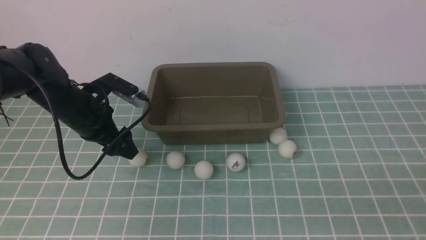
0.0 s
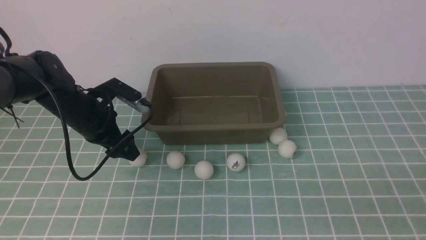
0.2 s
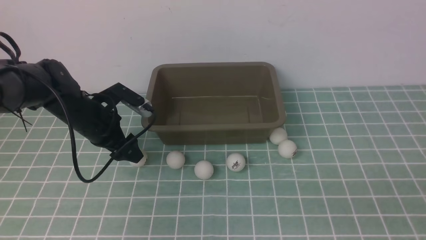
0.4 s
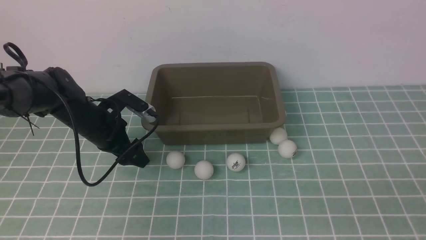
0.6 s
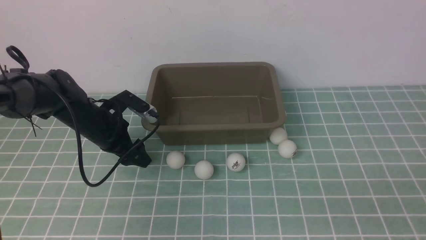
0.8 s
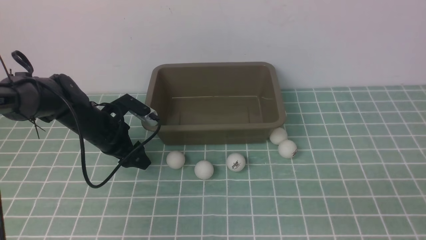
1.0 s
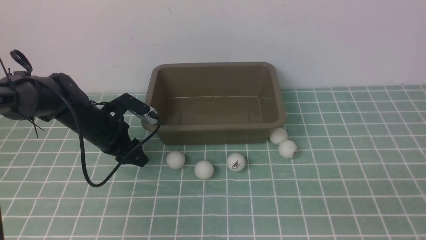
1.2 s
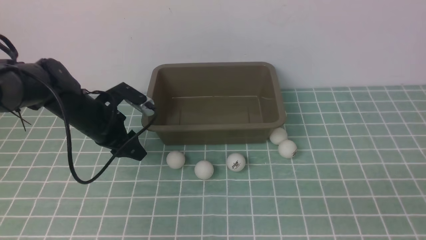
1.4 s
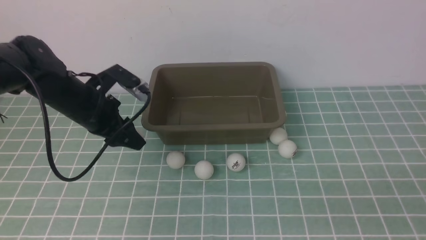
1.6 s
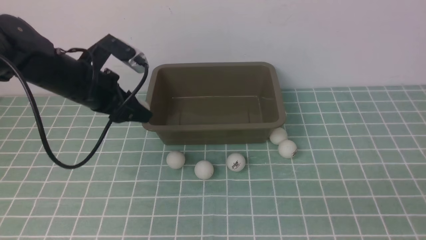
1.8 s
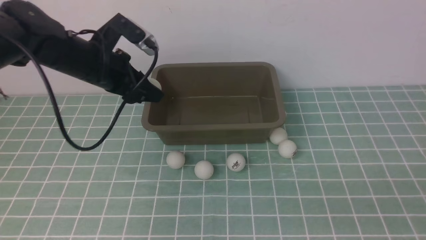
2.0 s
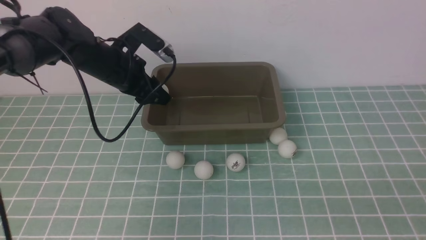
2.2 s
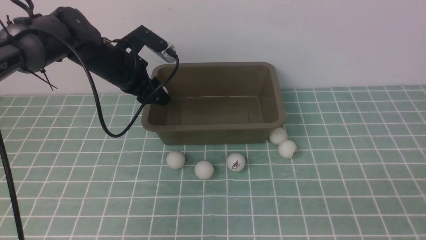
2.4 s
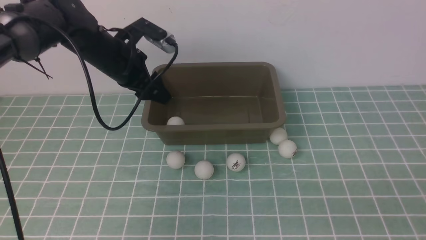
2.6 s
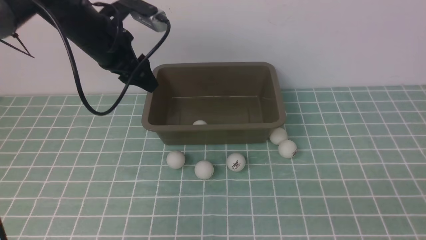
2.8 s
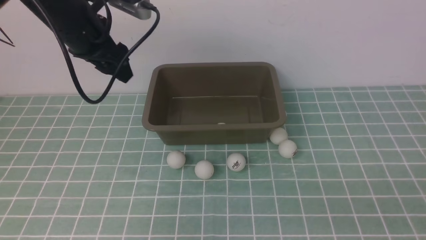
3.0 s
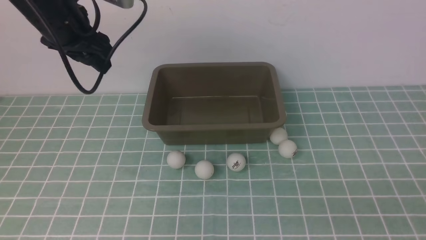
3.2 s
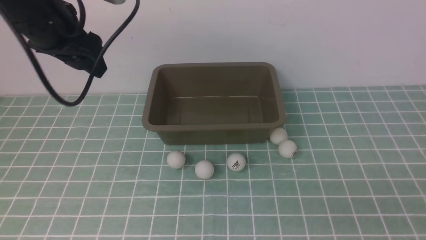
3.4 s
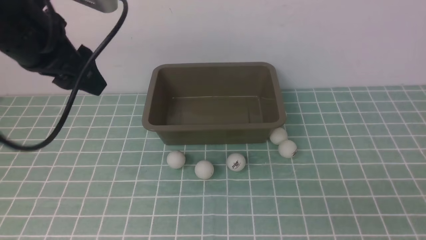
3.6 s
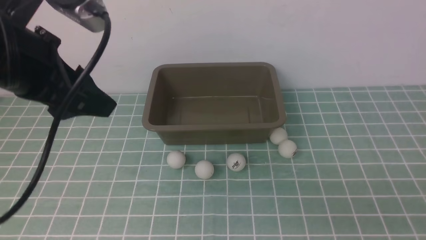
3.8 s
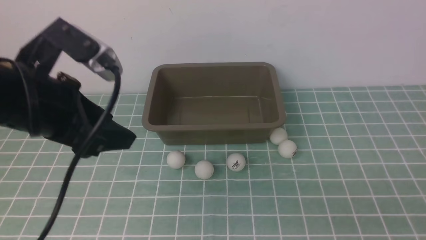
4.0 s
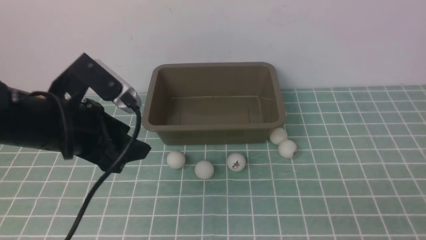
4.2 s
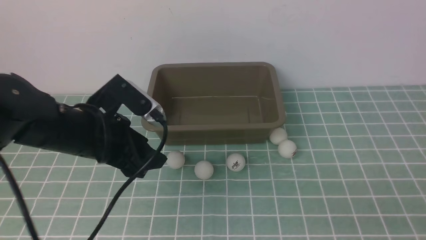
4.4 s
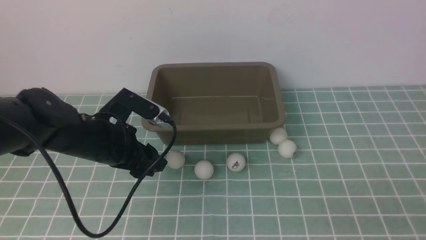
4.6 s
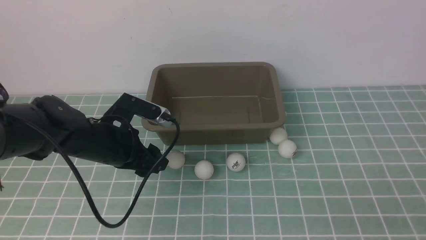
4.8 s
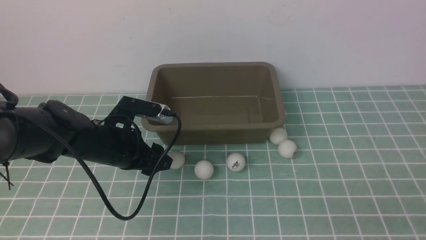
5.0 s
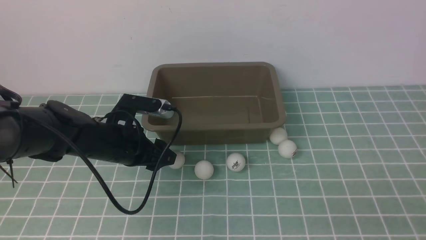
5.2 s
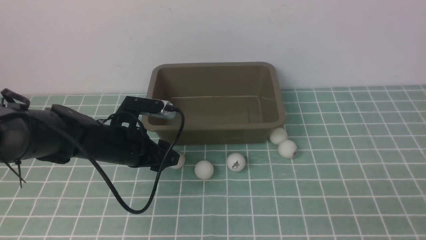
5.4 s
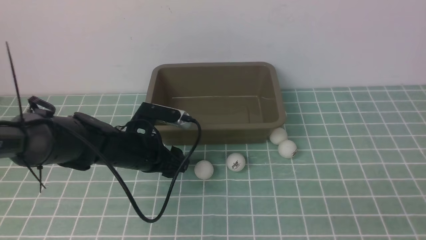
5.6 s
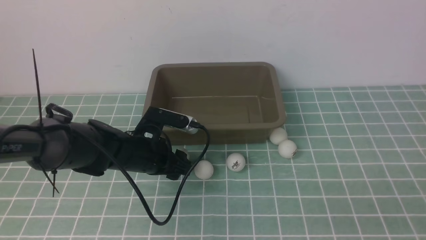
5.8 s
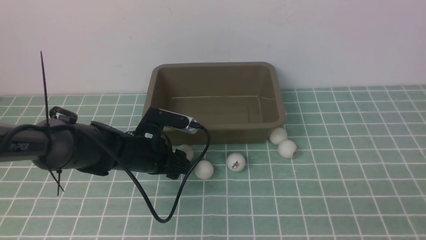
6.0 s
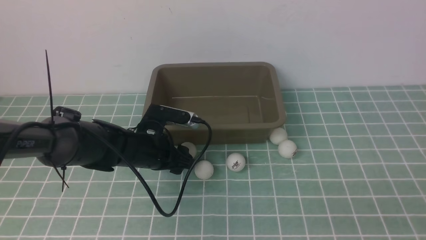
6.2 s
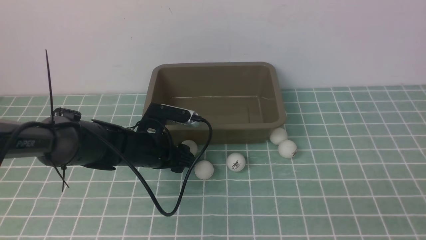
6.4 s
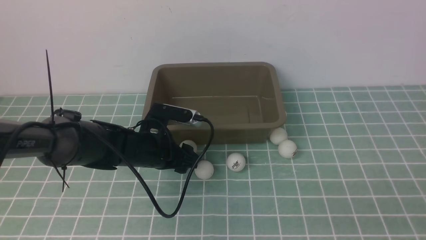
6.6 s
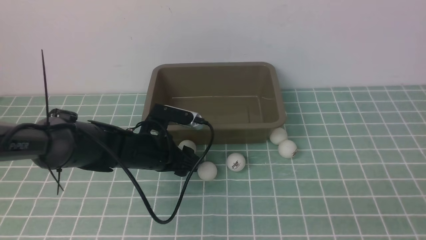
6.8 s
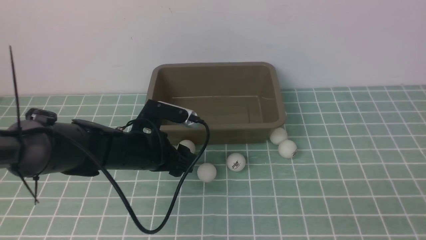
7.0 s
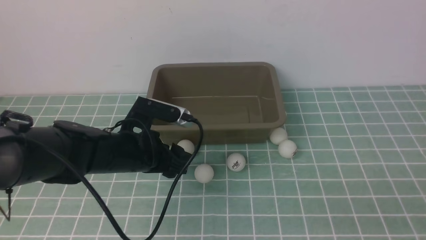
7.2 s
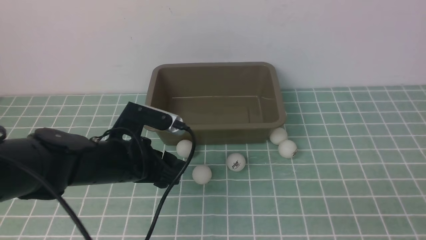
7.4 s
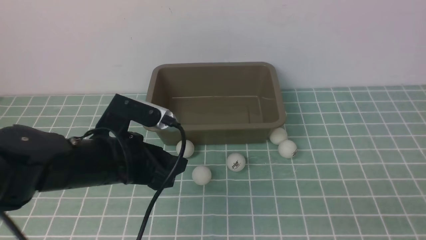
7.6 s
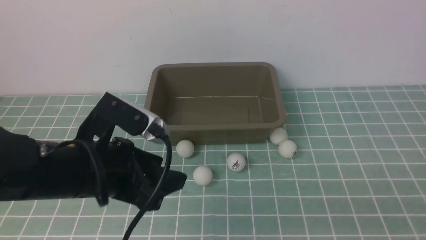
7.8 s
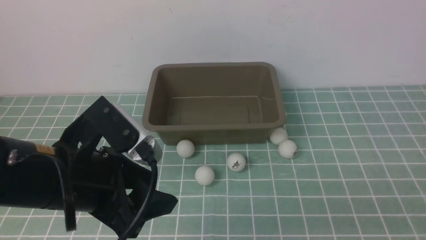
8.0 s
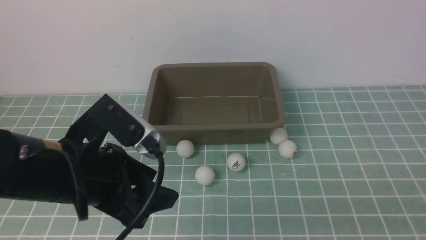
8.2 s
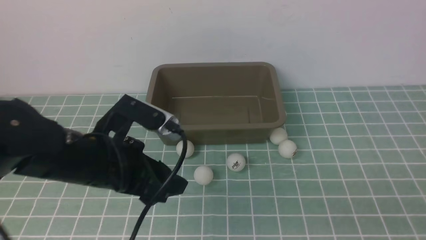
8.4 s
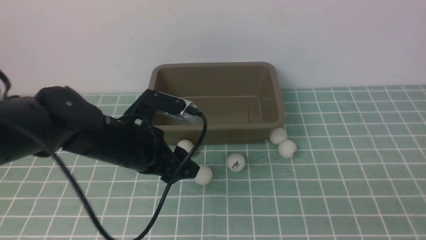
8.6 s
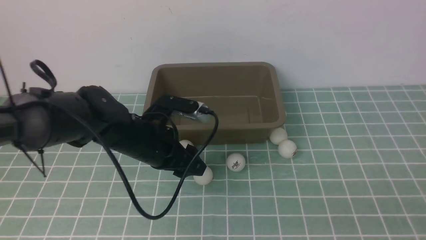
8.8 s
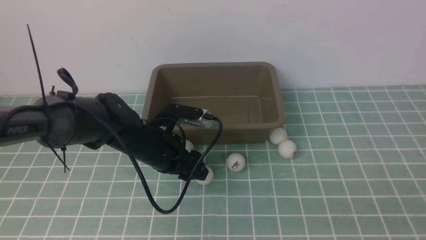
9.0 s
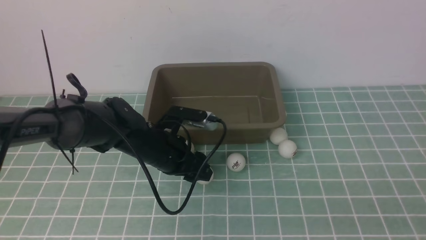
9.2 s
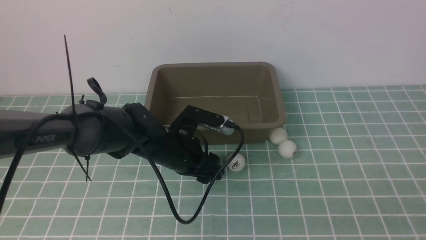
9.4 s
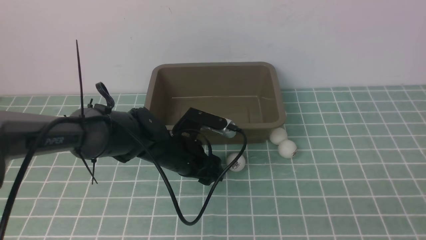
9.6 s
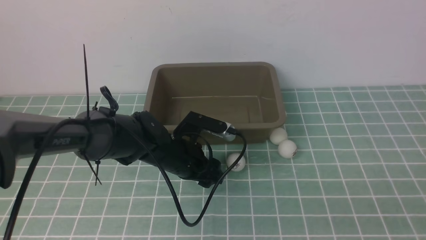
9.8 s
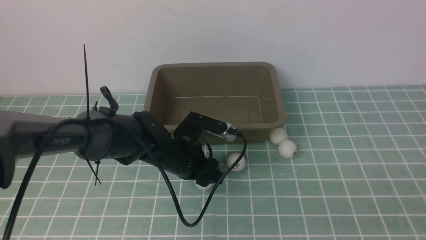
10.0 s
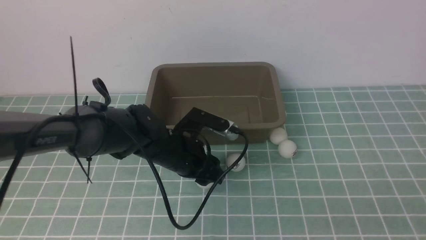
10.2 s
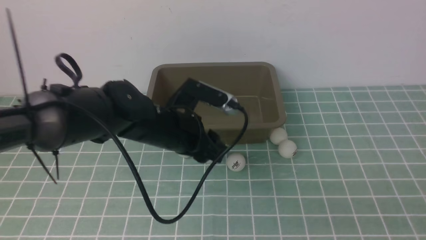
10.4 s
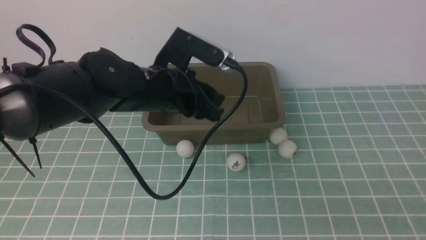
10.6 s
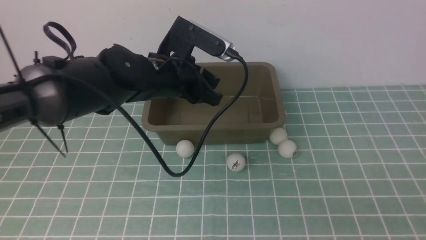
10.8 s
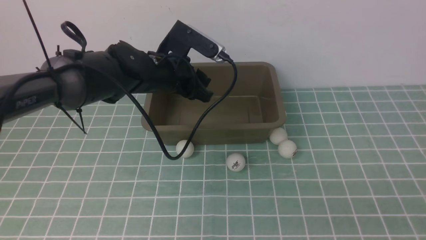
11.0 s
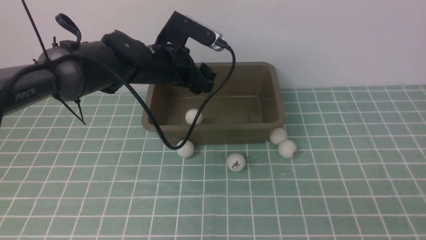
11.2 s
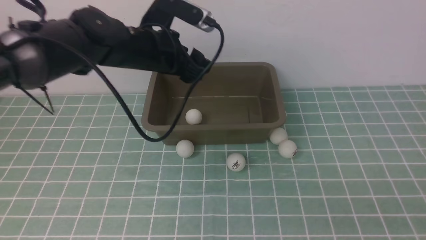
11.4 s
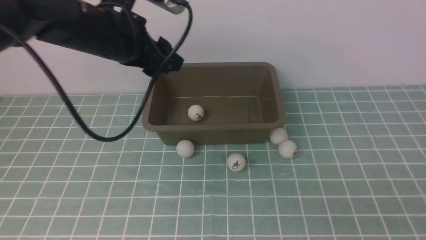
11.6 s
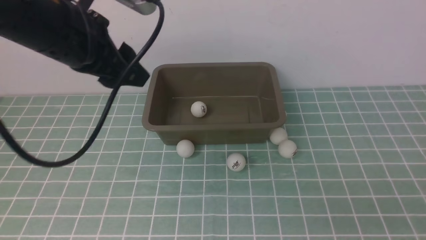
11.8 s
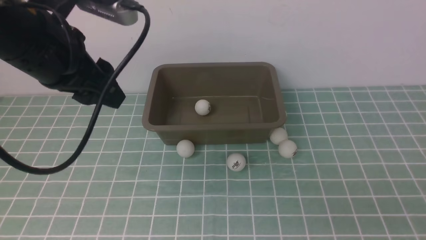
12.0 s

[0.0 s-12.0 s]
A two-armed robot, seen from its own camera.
Step, 1.6 to 2.6 s: use the left arm to put the table tennis ball into the box.
Step, 2.8 to 10.4 s: use the left arm to clamp the table tennis ball closest to it.
Step, 10.6 to 11.4 s: use the left arm to put the table tennis ball into the box.
0.0 to 1.6 s: The left gripper goes downward and returns, approximately 5 cm each way, and closes up.
1.6 to 3.0 s: The left gripper shifts roughly 10 cm upward, and opens its fingers.
3.0 to 4.4 s: The left gripper shifts approximately 15 cm backward and downward.
4.4 to 6.0 s: The left gripper travels downward and forward by about 10 cm.
6.0 to 7.6 s: The left gripper is displaced upward and backward by roughly 15 cm.
7.6 to 9.0 s: The left gripper goes approximately 15 cm forward, downward and to the right.
9.0 to 10.4 s: The left gripper is displaced upward by some 10 cm, and closes up.
10.4 to 12.0 s: The left gripper shifts roughly 15 cm backward, to the left and upward.

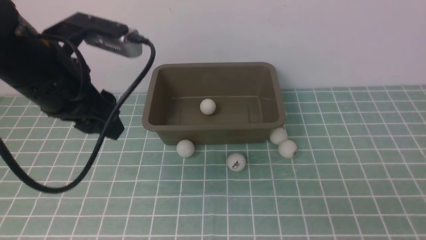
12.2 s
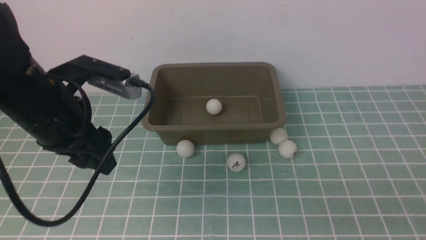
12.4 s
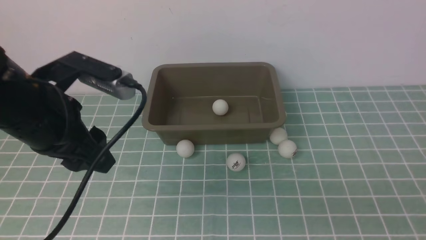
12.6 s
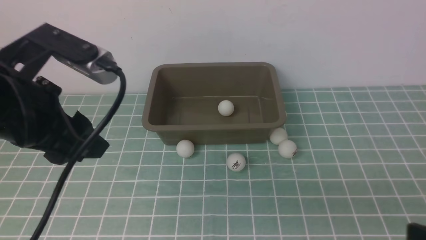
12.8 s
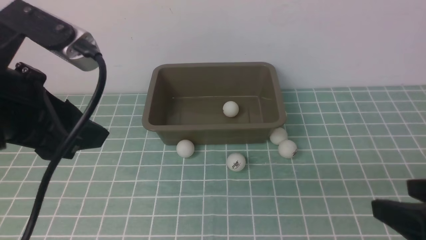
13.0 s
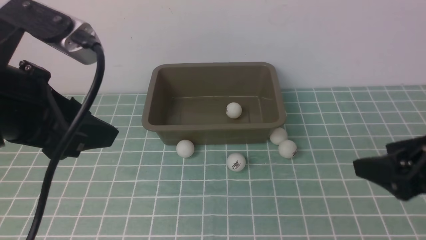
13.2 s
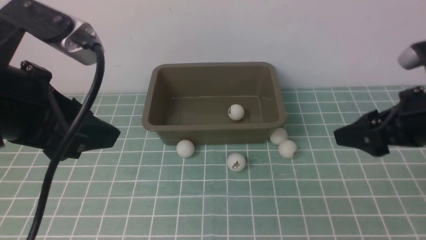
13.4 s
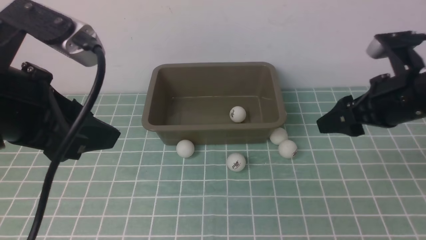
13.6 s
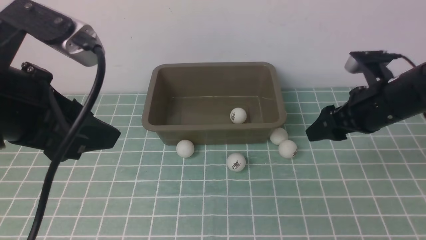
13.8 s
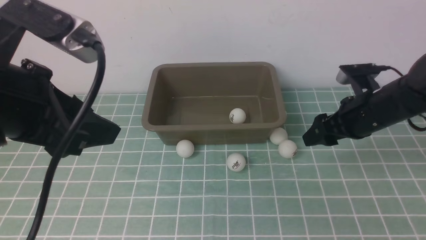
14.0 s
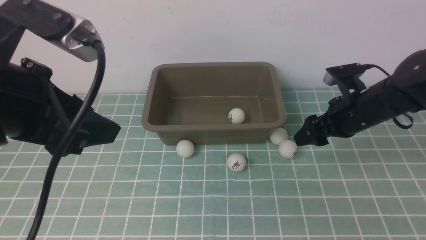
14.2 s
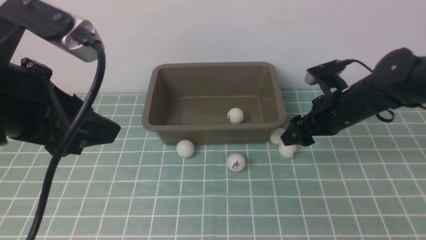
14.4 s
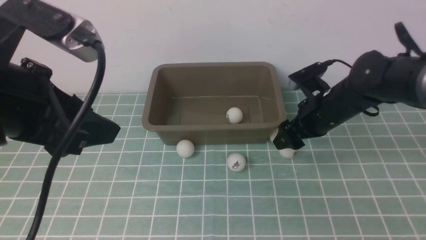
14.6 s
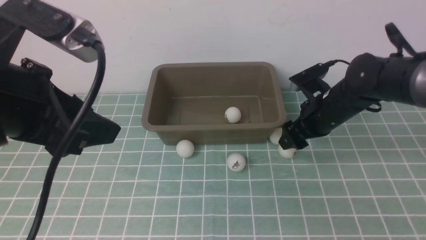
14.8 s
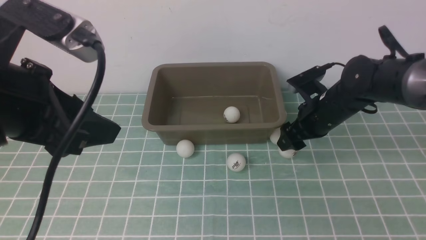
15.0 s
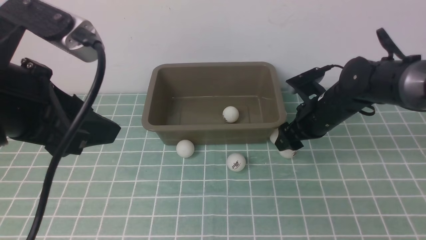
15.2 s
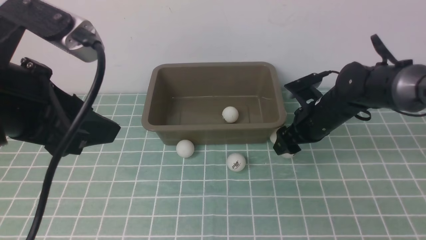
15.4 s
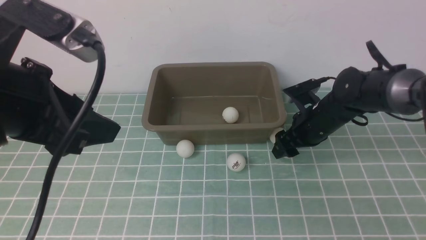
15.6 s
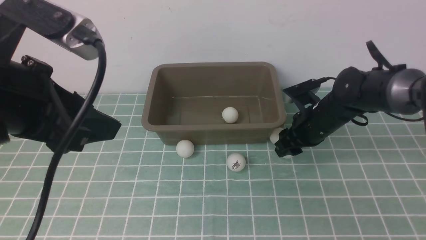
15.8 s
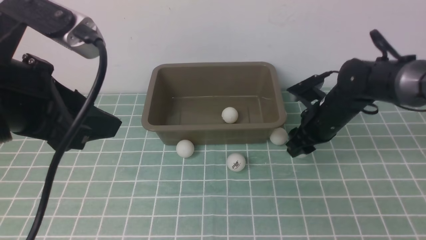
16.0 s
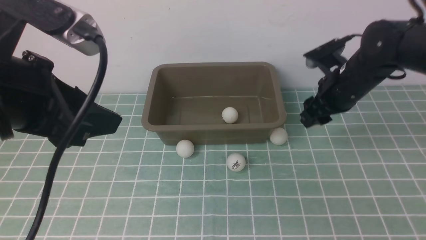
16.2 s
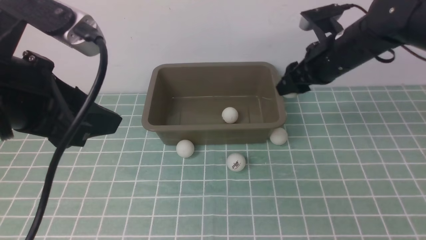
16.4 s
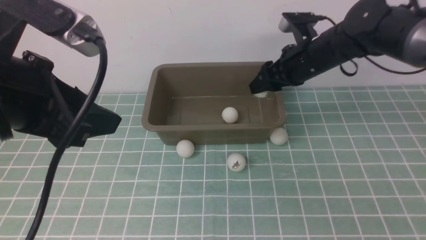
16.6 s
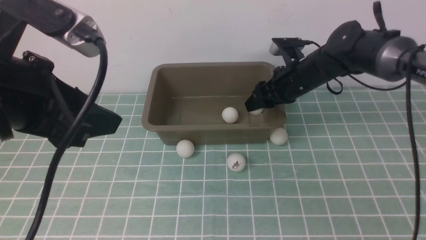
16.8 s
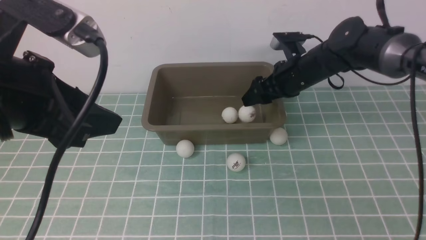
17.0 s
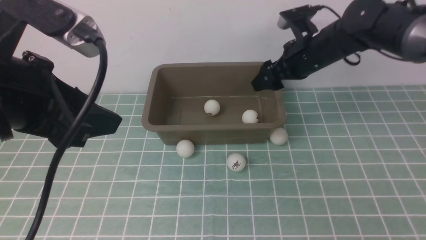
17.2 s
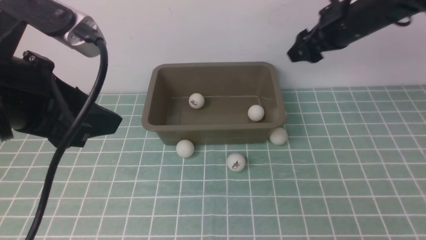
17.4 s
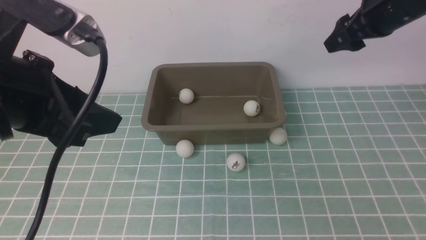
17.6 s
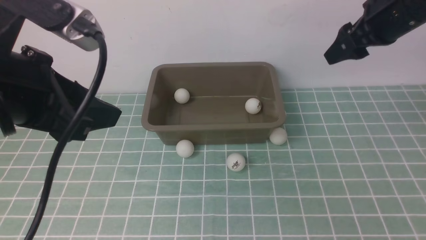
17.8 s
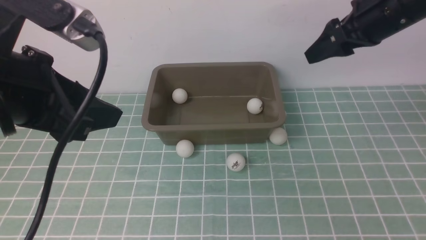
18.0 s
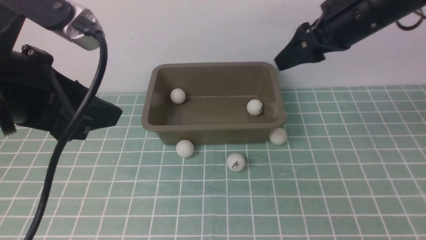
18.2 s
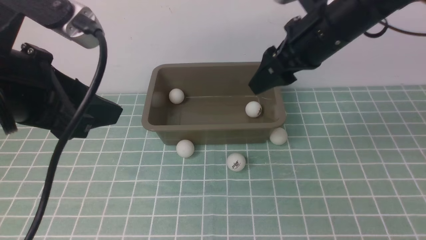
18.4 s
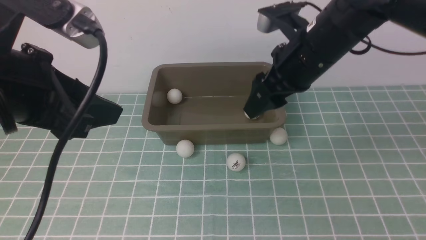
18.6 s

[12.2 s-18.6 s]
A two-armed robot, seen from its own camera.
Step, 12.2 to 16.0 s: use the right arm to clamp the table tennis ball closest to it.
Step, 16.4 to 17.0 s: use the right arm to put the table tennis ball into the box.
12.2 to 13.8 s: The right gripper heads forward, covering some 30 cm.
13.8 to 15.4 s: The right gripper closes its fingers.
15.4 to 17.0 s: The right gripper heads upward, covering approximately 15 cm, and opens.
17.0 to 18.6 s: The right gripper is displaced downward, to the left and backward by about 20 cm.
